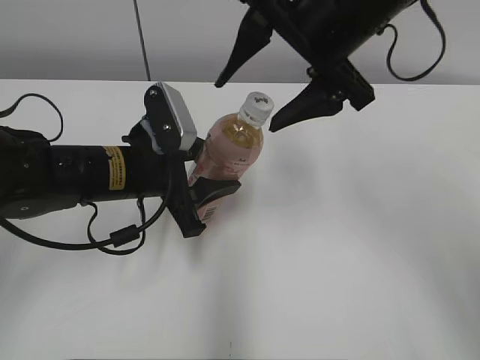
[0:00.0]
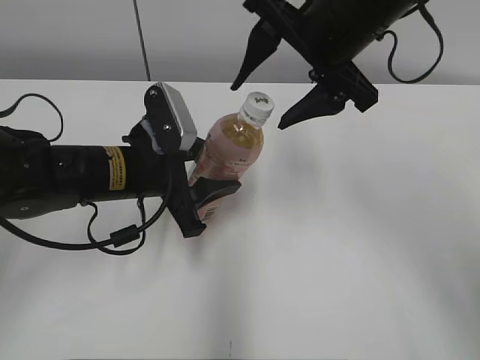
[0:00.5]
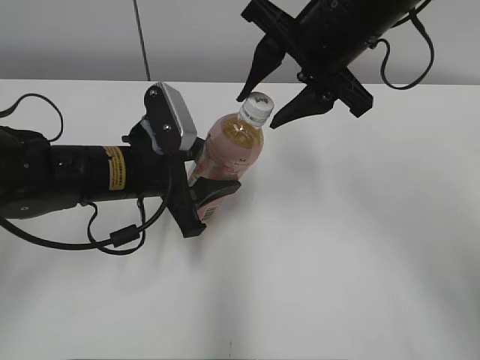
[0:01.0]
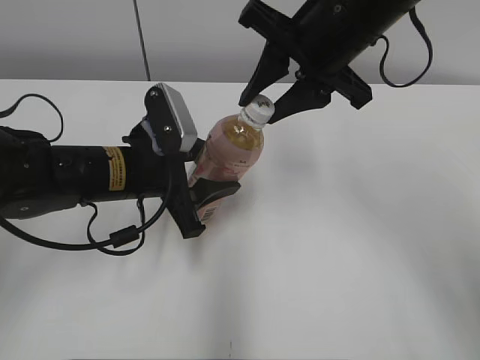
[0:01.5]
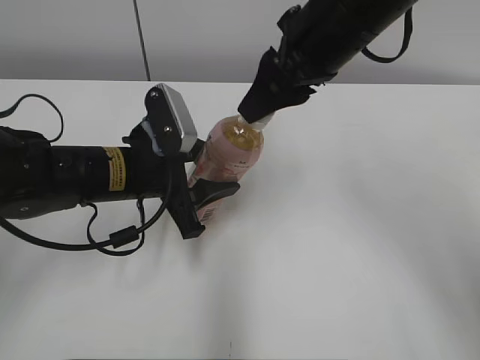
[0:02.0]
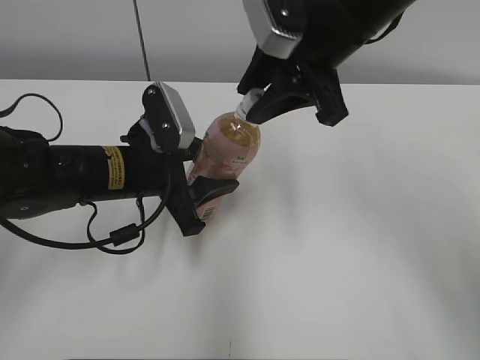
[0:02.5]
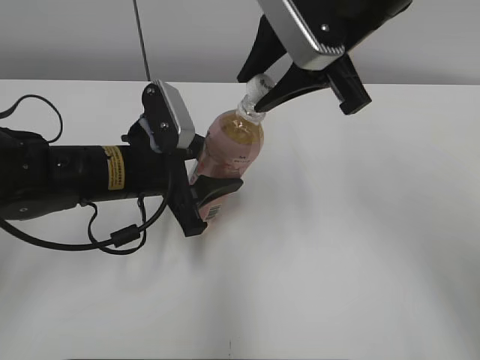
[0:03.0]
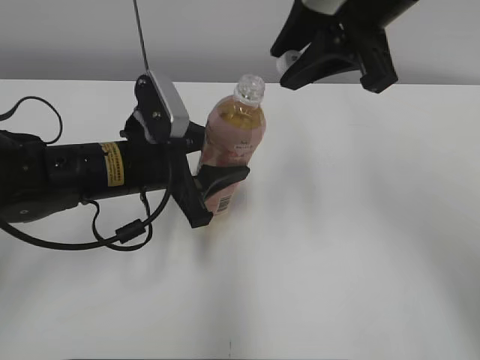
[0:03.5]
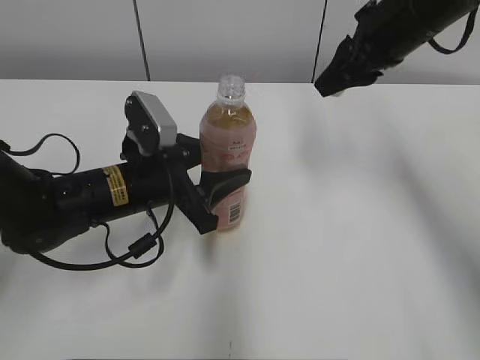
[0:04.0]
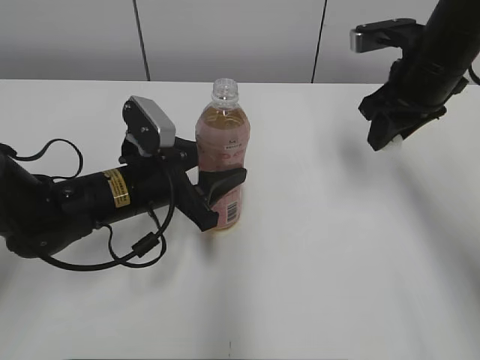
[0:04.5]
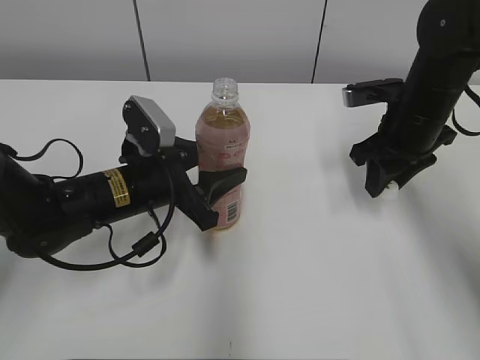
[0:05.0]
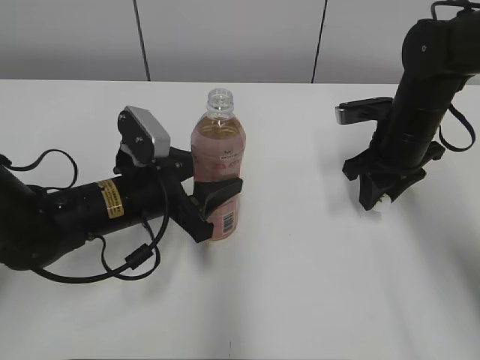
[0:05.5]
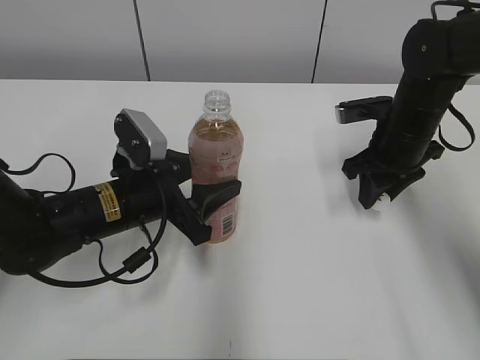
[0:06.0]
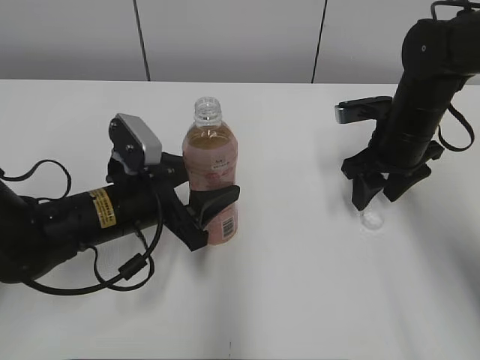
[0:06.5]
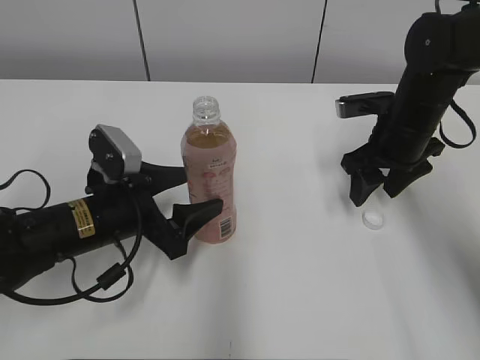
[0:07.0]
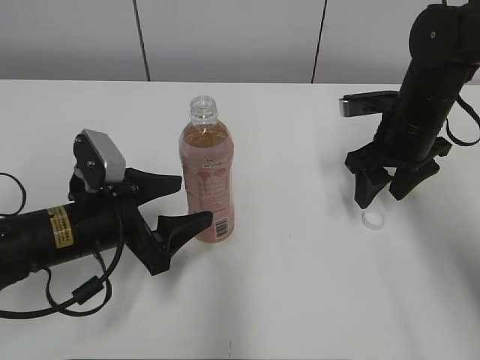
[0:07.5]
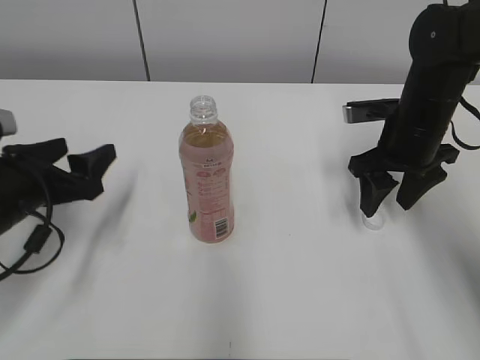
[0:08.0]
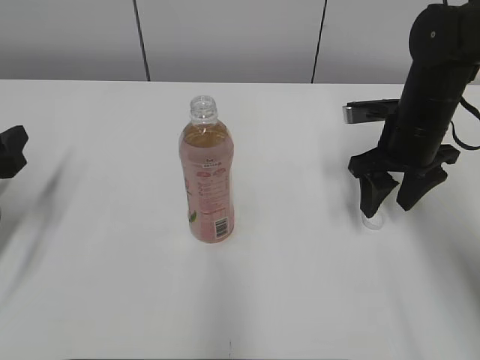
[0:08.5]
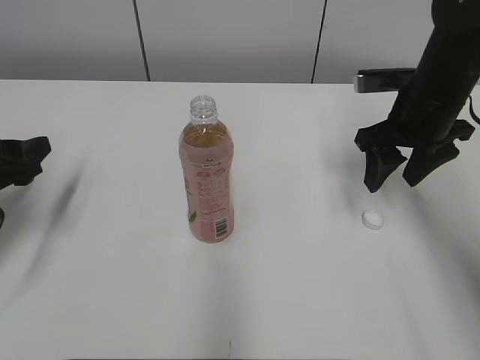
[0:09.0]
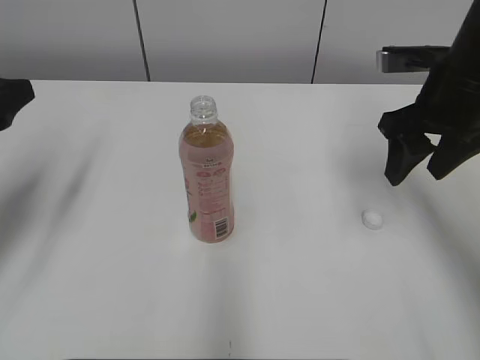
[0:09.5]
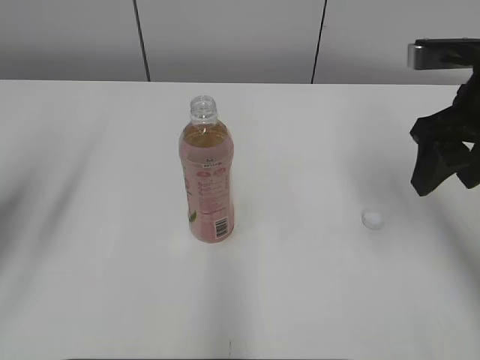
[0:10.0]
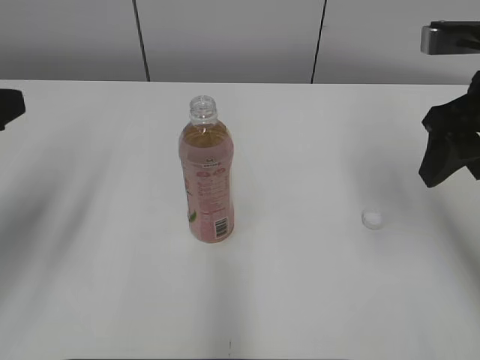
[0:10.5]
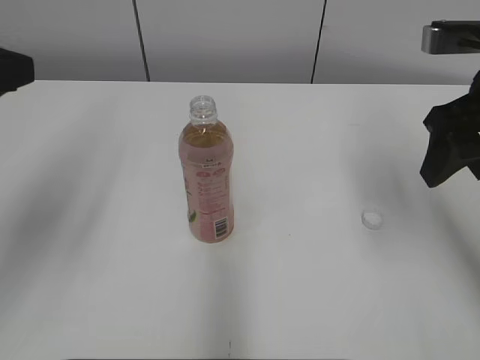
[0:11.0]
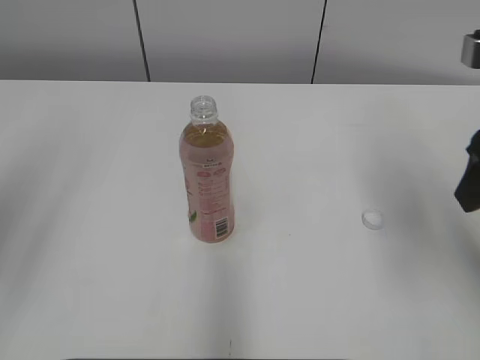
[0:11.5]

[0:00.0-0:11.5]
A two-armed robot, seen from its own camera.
Step, 0.0 to 3.0 s: Twist the bottle cap with the right hand.
Step, 3.5 to 7.0 s: Place the bottle cap on the right.
0.0 to 2.0 s: The right gripper closes.
2.0 to 4.0 s: The right gripper moves to the right and forward, some 10 cm.
4.0 to 6.0 s: The right gripper travels downward by approximately 15 cm.
6.0 to 7.5 s: The right gripper opens up. Meanwhile the left gripper opens up.
7.5 to 9.5 s: The left gripper goes roughly 20 cm to the left and upward; the right gripper moves upward, approximately 10 cm.
9.5 to 11.5 s: The right gripper heads backward and upward, covering roughly 10 cm. Meanwhile the left gripper moves upward and backward, about 15 cm.

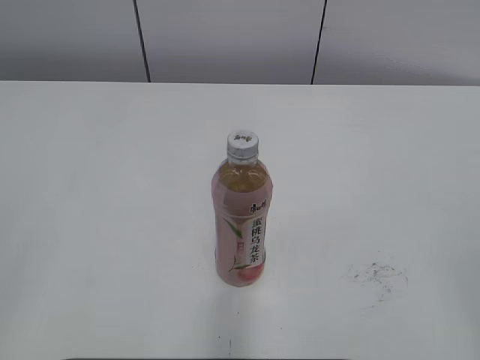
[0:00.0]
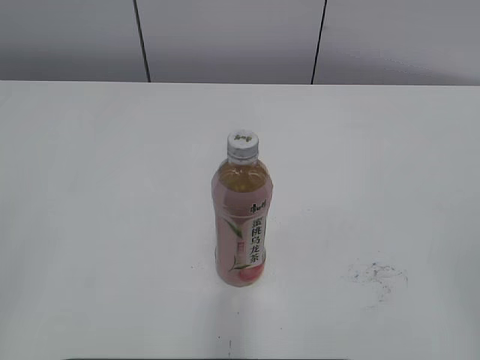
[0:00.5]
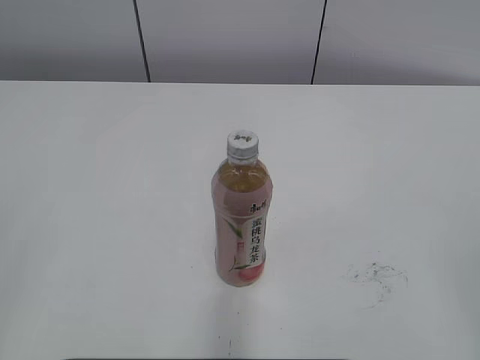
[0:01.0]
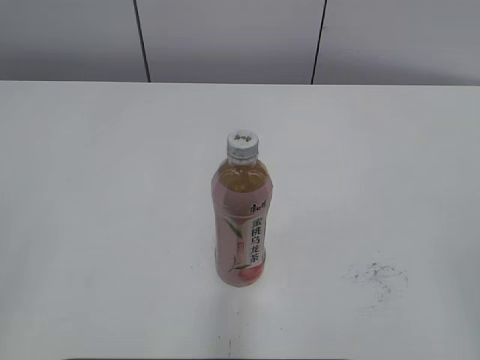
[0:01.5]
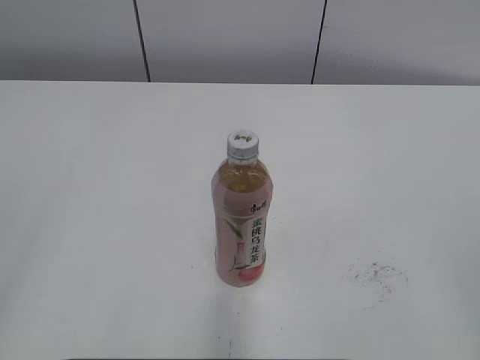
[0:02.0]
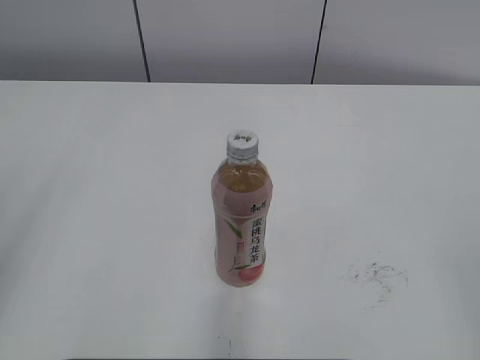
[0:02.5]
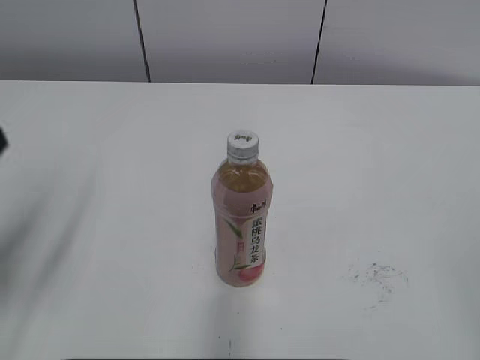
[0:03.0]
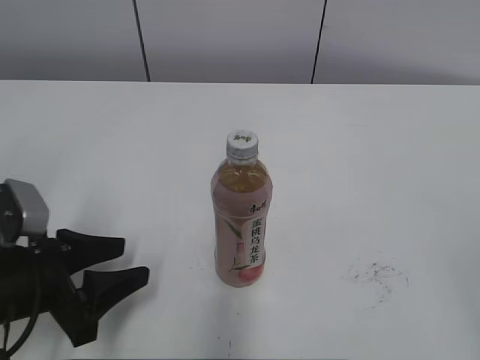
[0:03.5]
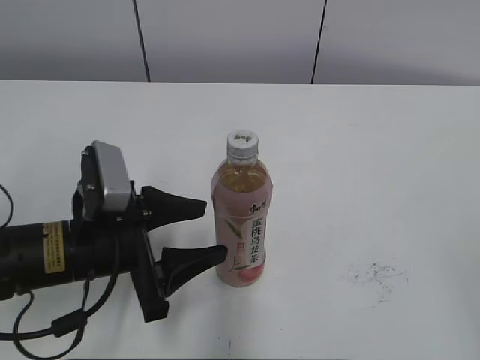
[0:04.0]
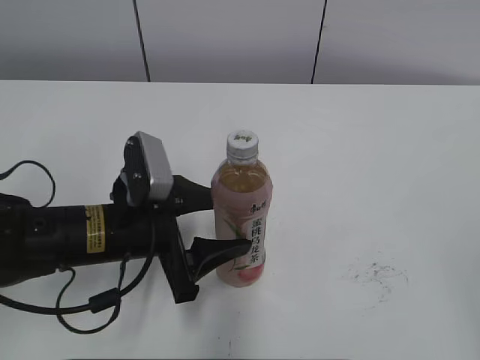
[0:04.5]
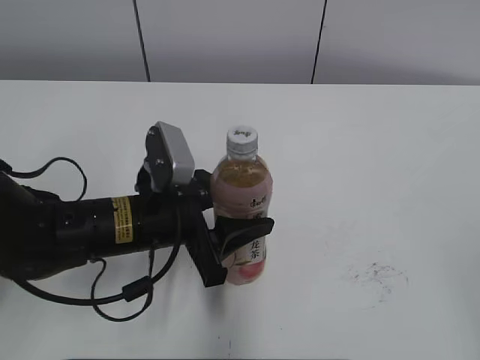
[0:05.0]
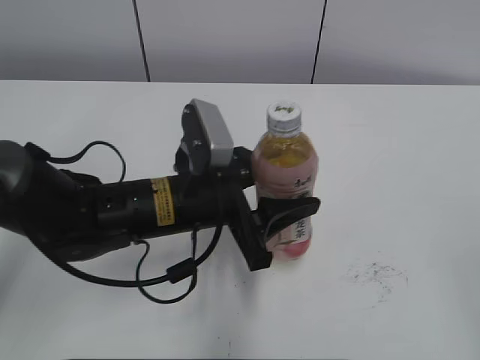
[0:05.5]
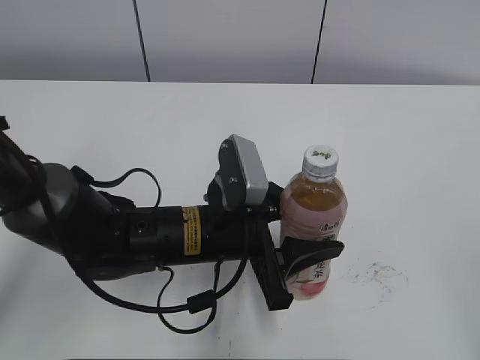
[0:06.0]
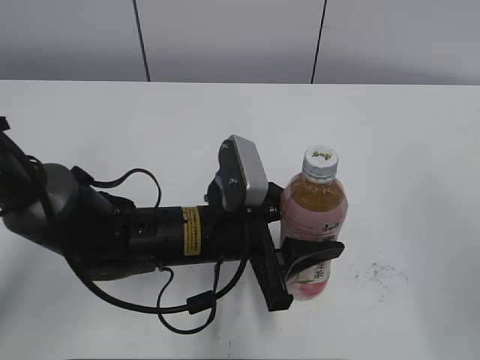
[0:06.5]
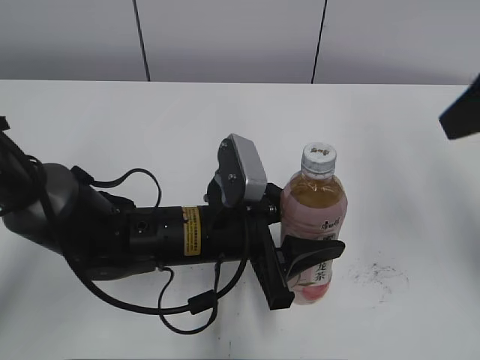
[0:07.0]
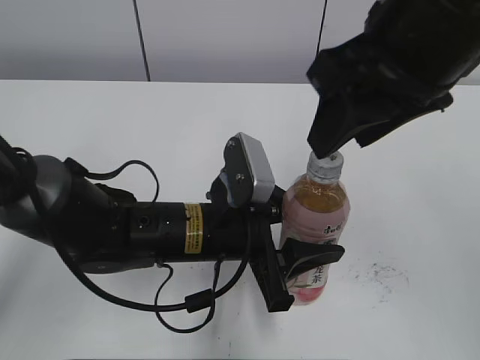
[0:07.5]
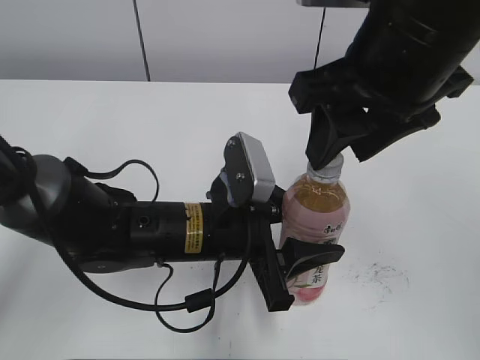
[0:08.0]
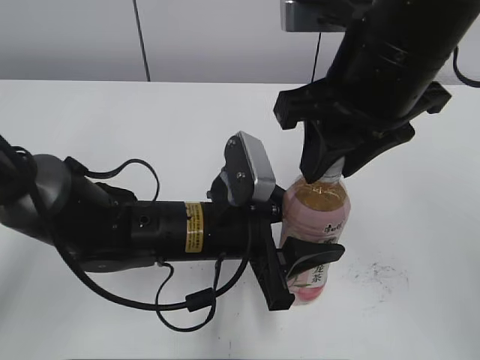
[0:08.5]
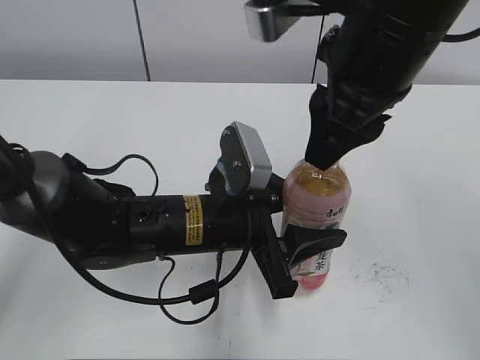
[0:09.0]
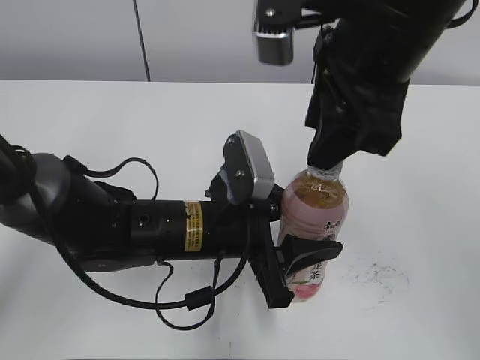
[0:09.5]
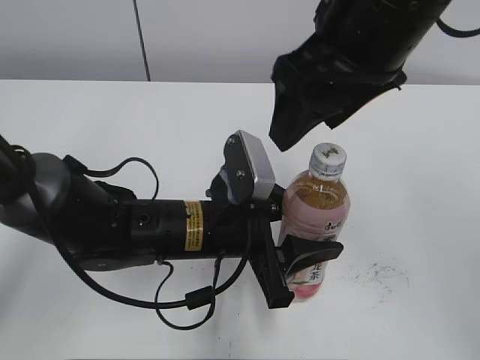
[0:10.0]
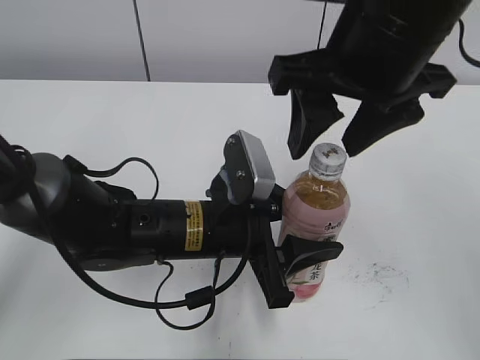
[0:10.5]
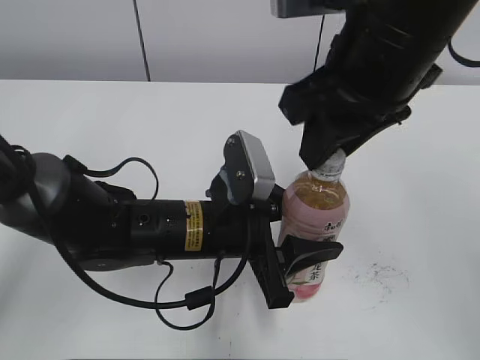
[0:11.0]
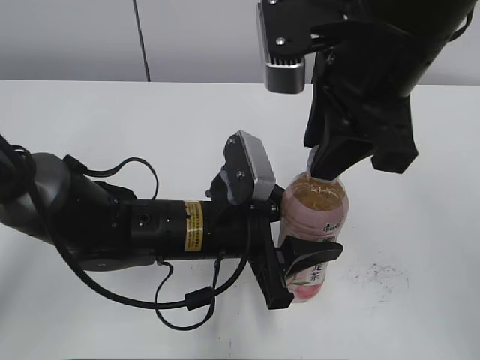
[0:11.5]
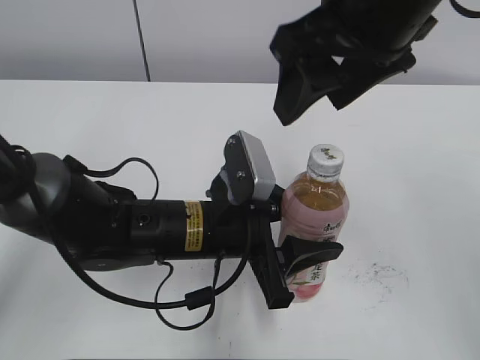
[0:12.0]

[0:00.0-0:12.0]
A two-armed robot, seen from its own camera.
Step, 0.0 to 5.0 s: Grab the Peach Oolong Tea with the left hand.
2.0 to 4.0 s: The left gripper goes about 35 cm forward, downward and to the right.
4.0 to 6.0 s: The left gripper shifts approximately 10 cm to the right, and closes up.
6.0 to 8.0 s: The right gripper moves forward and to the left, about 30 cm, and closes.
8.0 to 10.0 s: The right gripper opens up.
10.0 to 12.0 s: The right gripper closes and opens again.

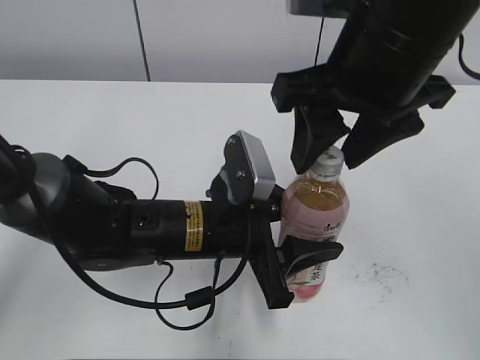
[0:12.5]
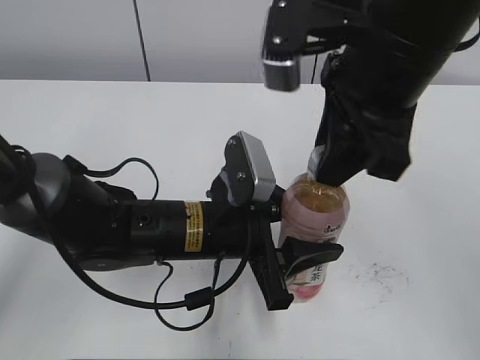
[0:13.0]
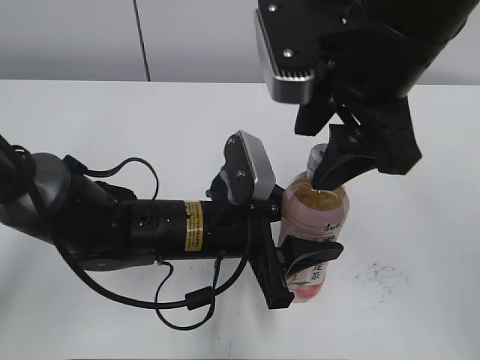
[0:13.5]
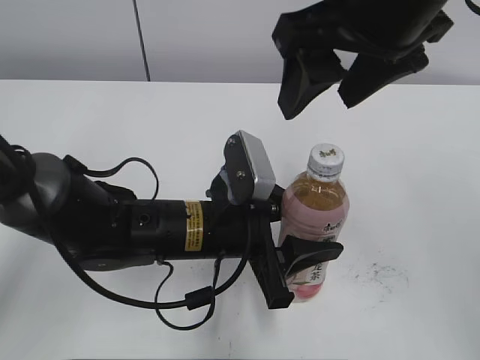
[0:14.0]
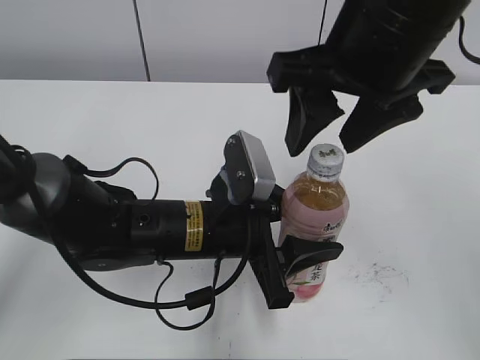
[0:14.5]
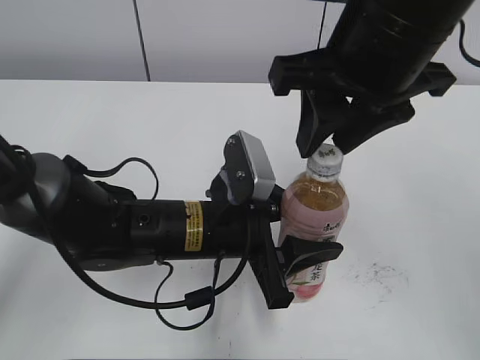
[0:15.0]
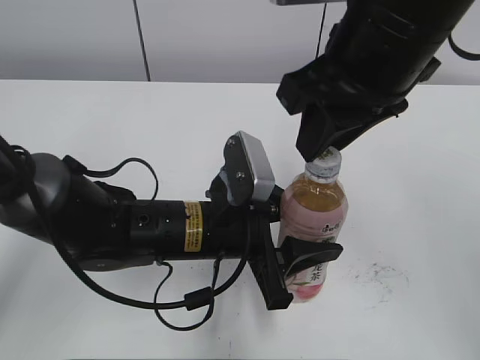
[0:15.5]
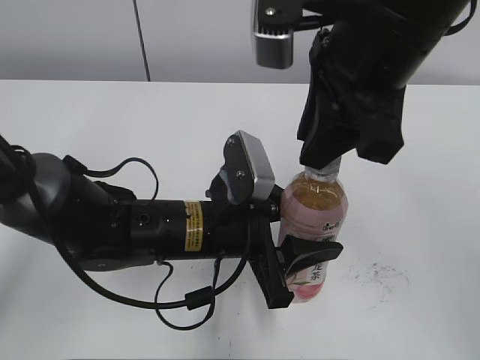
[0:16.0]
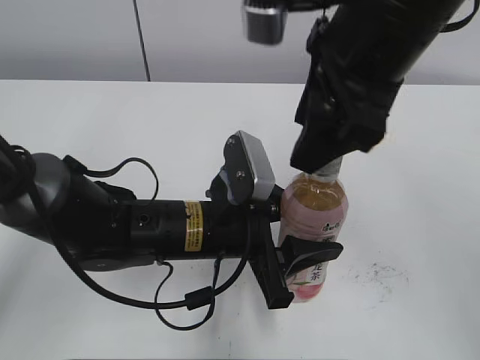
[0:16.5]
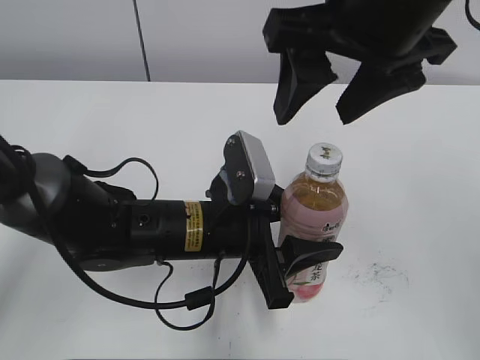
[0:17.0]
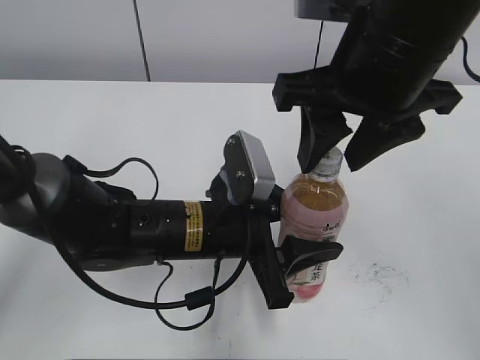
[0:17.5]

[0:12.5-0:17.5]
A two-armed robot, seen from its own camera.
12.5 to 15.0 s: The right gripper opens and closes again.
15.0 to 17.5 s: The right gripper opens, then closes once more.
